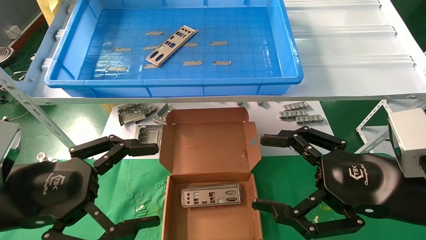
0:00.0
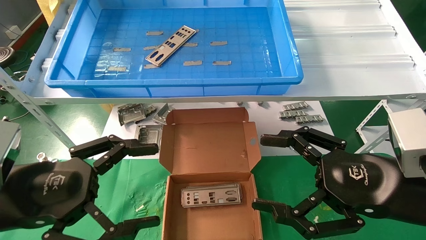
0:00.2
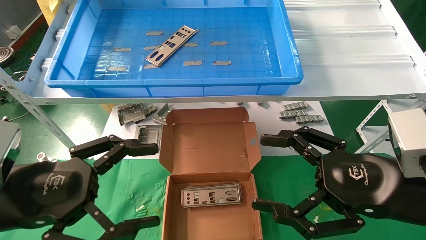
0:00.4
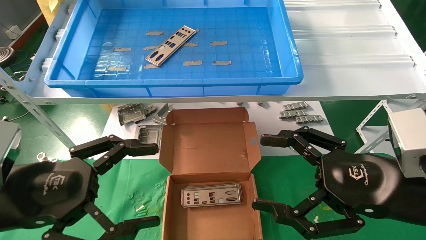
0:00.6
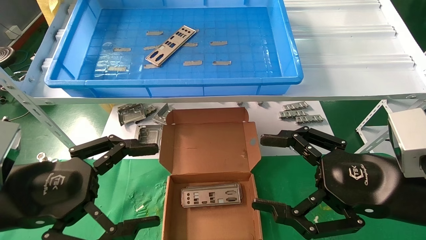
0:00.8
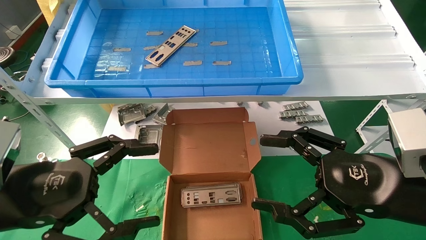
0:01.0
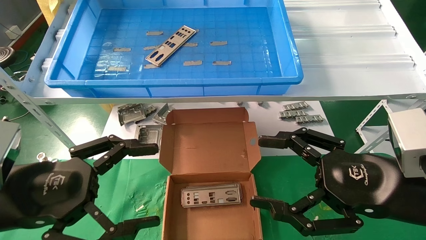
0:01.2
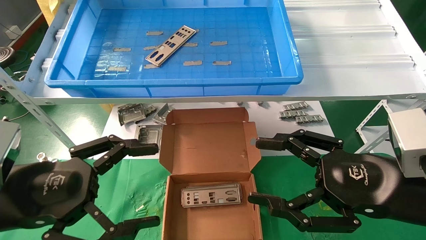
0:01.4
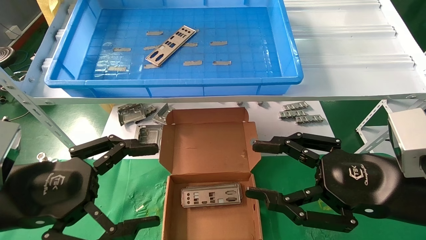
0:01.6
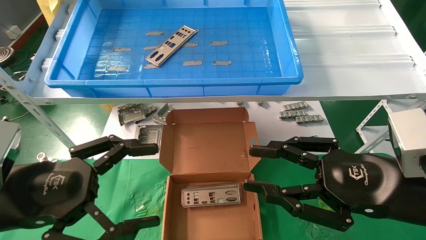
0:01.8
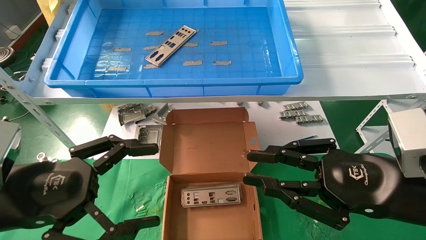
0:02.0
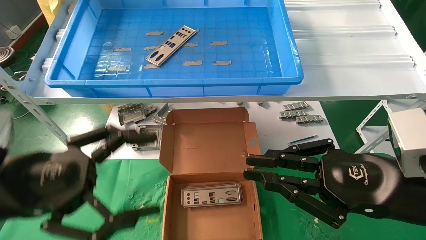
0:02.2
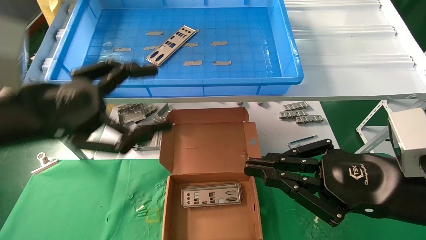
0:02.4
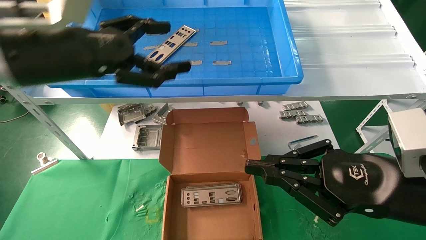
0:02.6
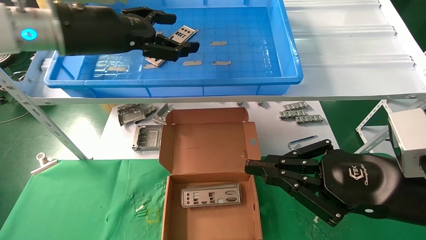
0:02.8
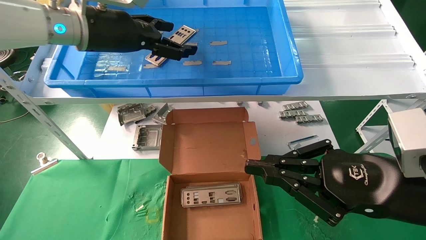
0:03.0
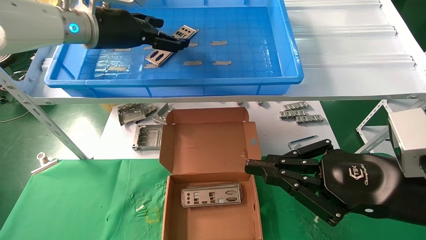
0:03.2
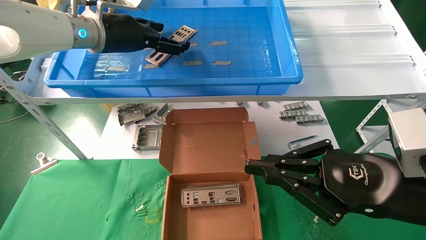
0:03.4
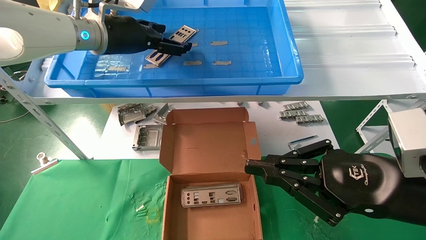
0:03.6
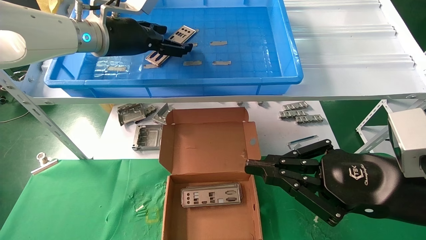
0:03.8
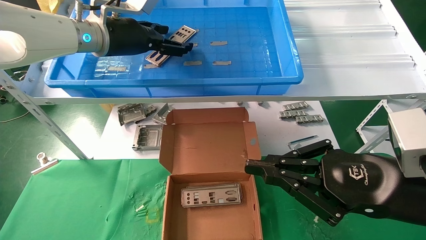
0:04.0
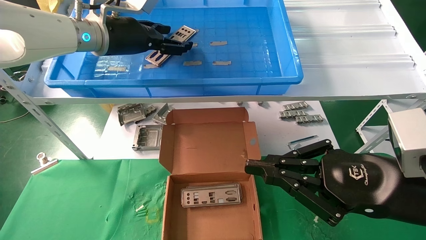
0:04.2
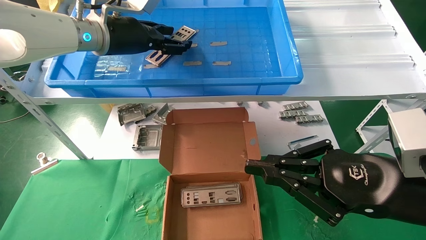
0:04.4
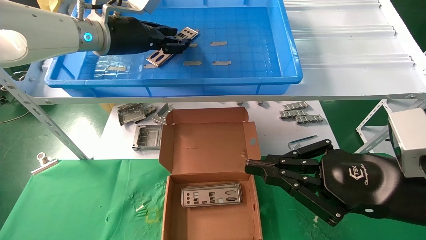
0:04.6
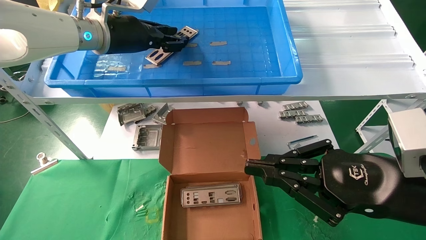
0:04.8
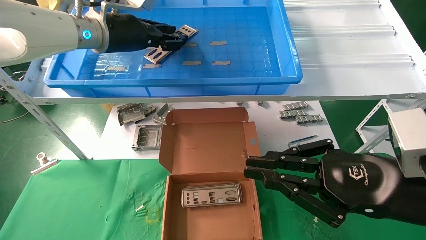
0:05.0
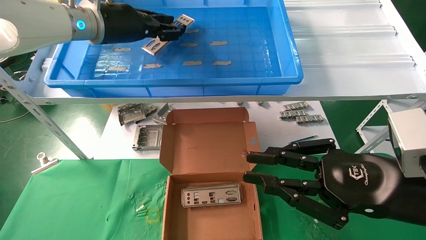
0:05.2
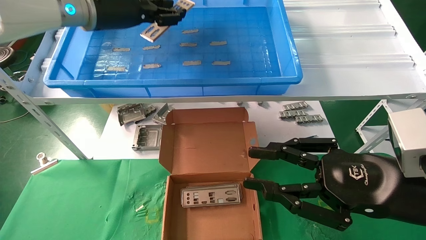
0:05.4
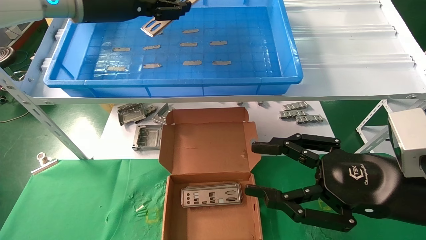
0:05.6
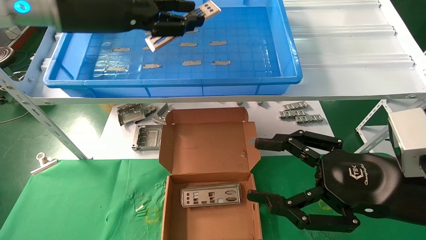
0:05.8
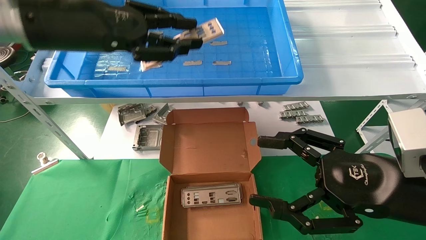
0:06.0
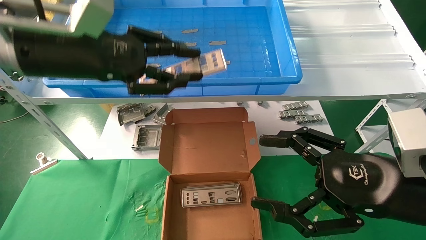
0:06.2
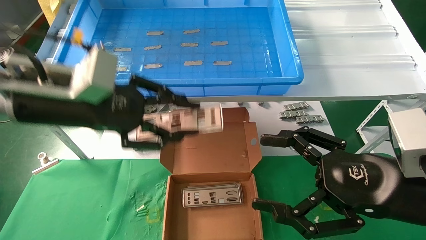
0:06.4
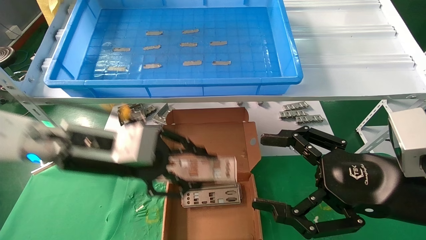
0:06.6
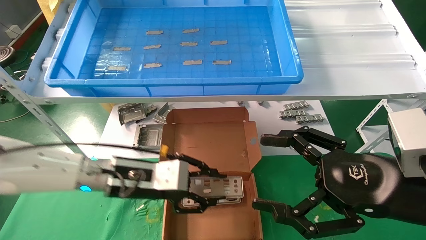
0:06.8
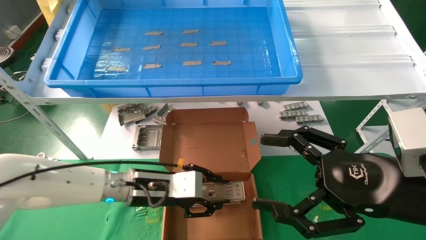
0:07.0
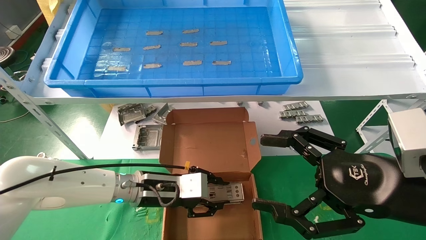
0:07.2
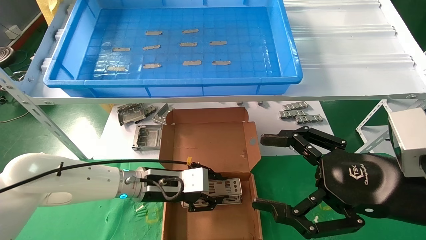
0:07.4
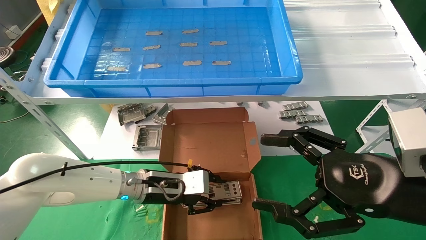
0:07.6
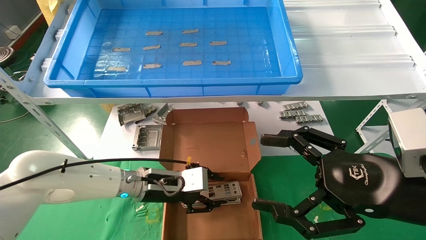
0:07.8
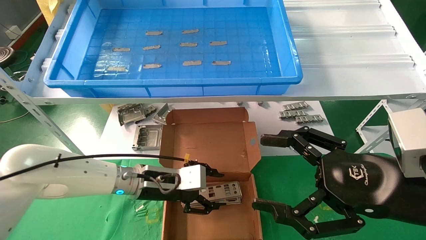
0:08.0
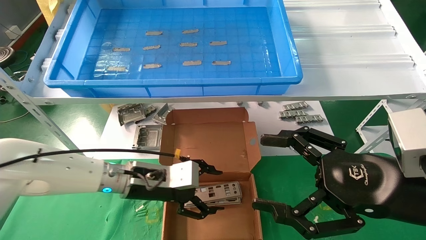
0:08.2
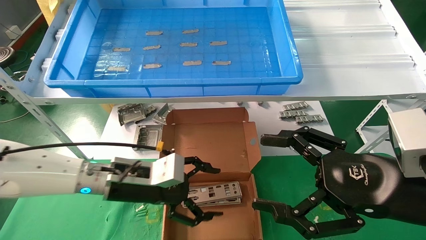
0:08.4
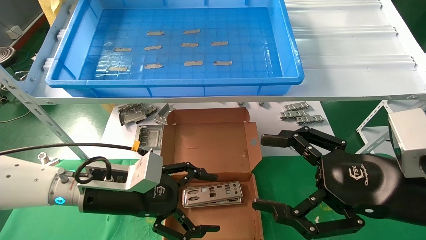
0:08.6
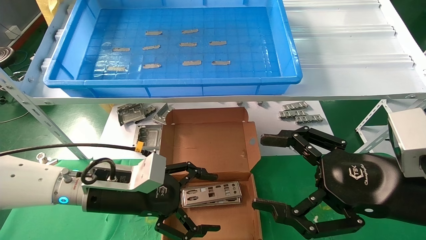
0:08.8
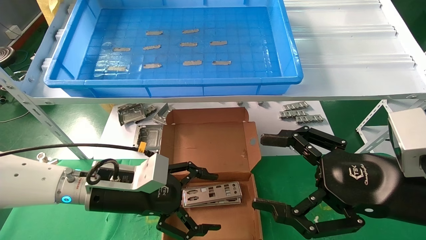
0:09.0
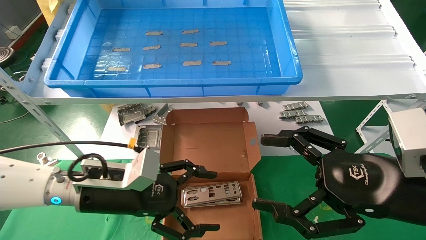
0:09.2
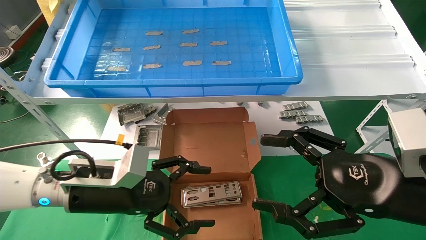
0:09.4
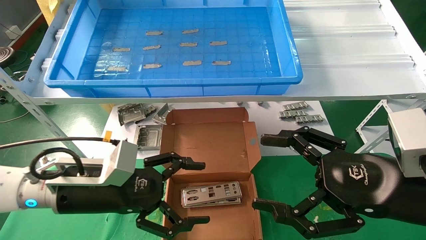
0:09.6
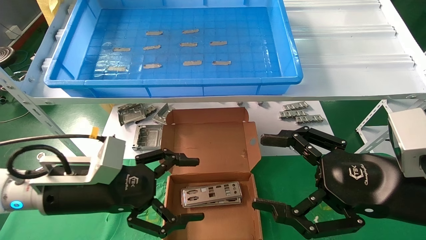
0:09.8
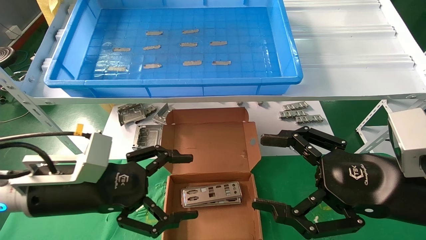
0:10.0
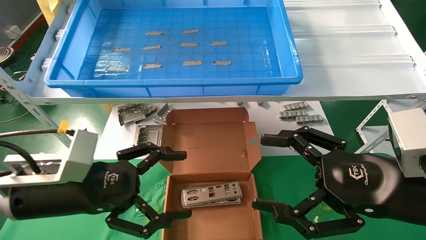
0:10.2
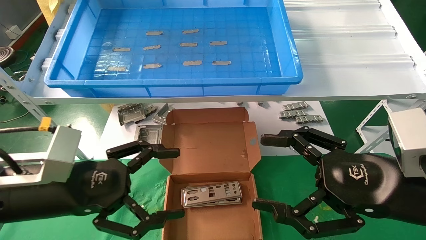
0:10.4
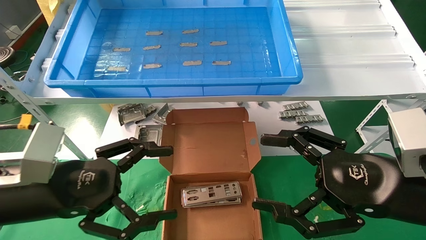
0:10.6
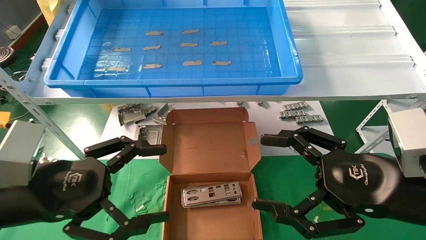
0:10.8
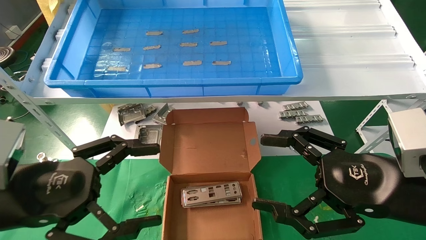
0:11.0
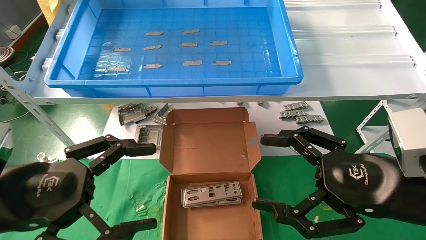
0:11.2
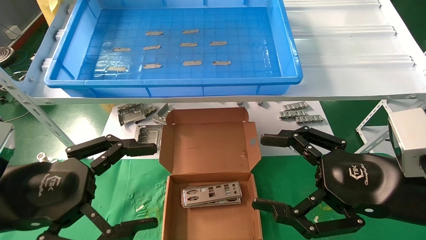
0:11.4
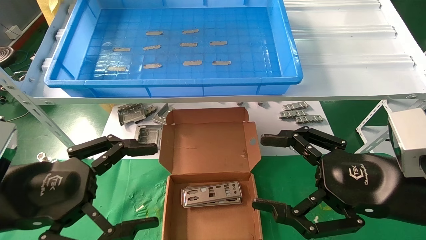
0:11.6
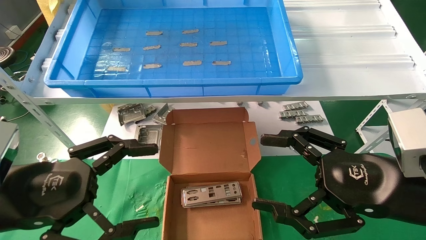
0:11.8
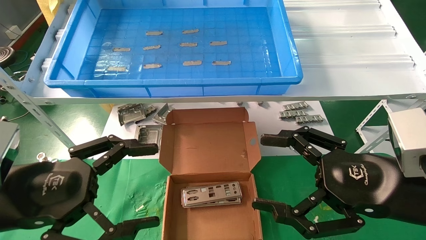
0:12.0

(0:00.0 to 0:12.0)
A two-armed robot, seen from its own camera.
Task of the whole recording: pick up the parts on the tray and put them in the cardboard box.
Step, 0:02.6 - 0:04.8: Pick up the IO bracket from the container box.
Step, 0:05.0 - 0:07.8: Place the IO bracket into the ingredient slot.
0:00.0 - 0:01.6: Both grippers stay put.
0:01.6 - 0:03.0: The right gripper closes up, while the left gripper is displaced forward and upward by some 30 cm.
0:03.0 - 0:04.4: The left gripper closes up.
0:04.4 - 0:06.0: The right gripper opens. Meanwhile the left gripper goes approximately 10 cm backward, and closes.
0:06.0 - 0:07.6: The left gripper travels downward by roughly 30 cm.
0:07.6 - 0:09.0: The left gripper heads backward and to the left, covering approximately 10 cm, and opens.
0:09.0 - 0:10.4: The left gripper shifts approximately 10 cm backward and to the left.
0:10.4 - 0:12.0: The left gripper shifts by approximately 5 cm.

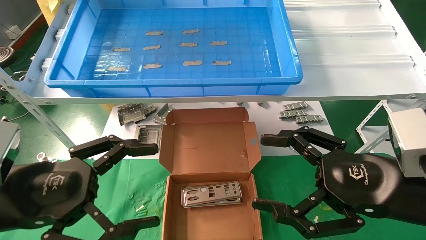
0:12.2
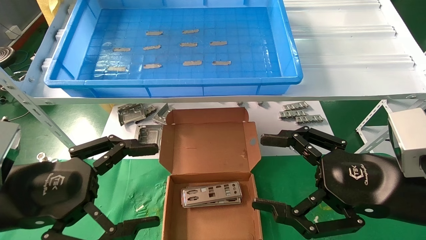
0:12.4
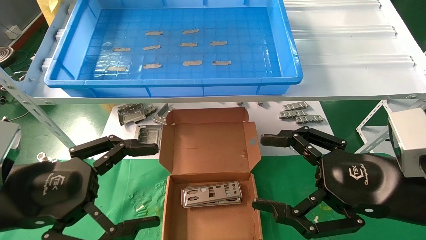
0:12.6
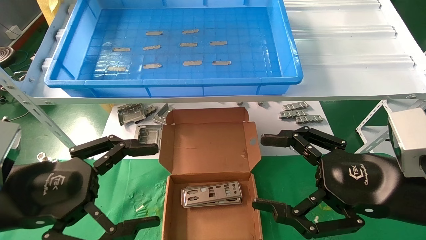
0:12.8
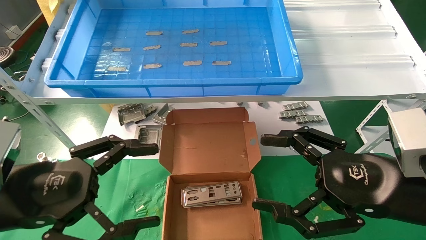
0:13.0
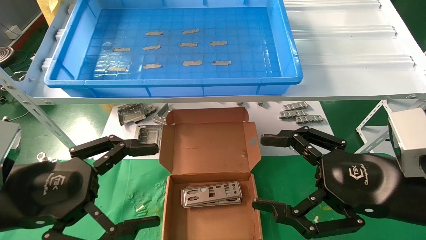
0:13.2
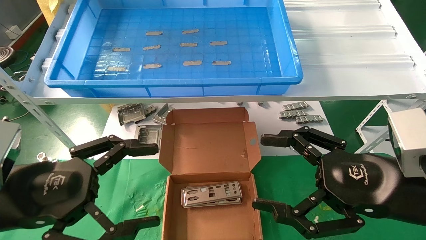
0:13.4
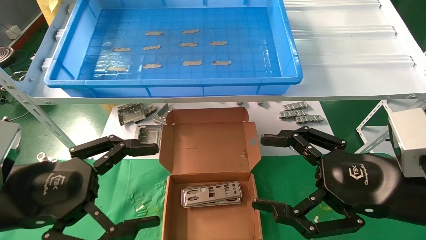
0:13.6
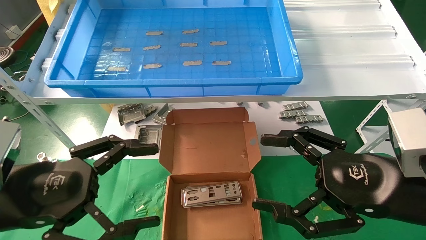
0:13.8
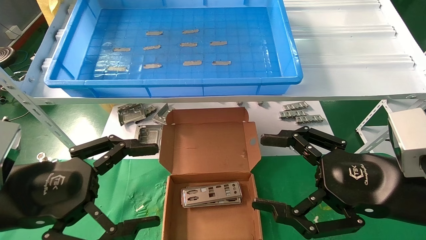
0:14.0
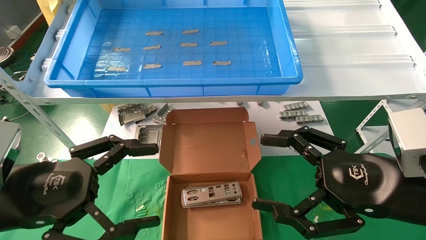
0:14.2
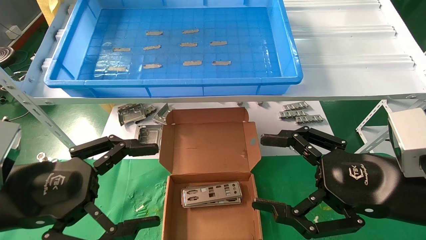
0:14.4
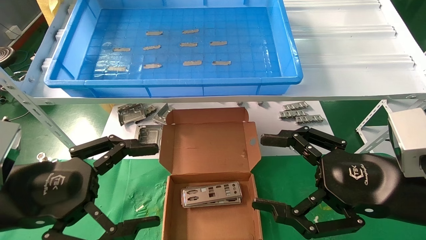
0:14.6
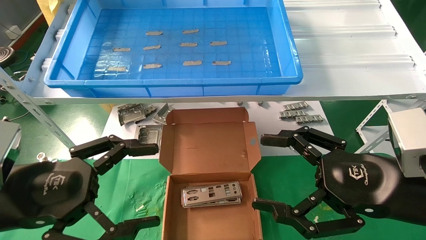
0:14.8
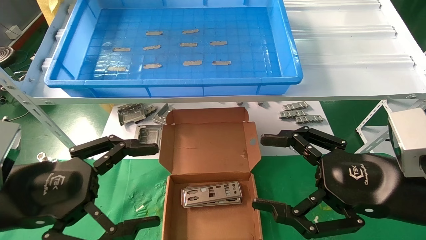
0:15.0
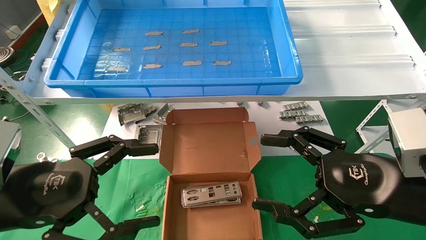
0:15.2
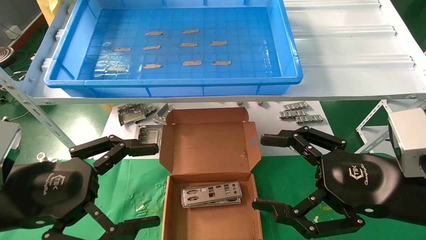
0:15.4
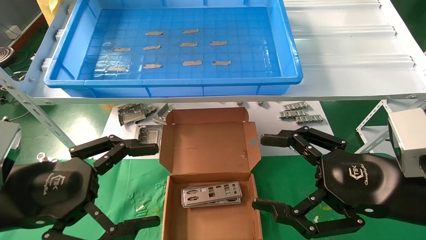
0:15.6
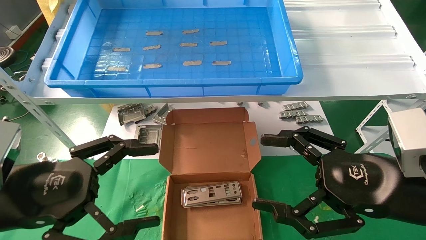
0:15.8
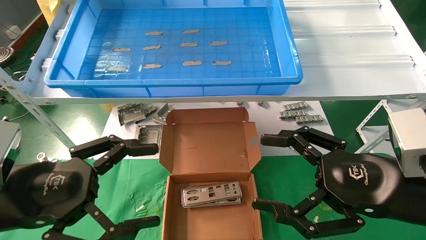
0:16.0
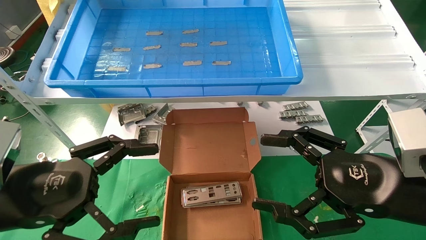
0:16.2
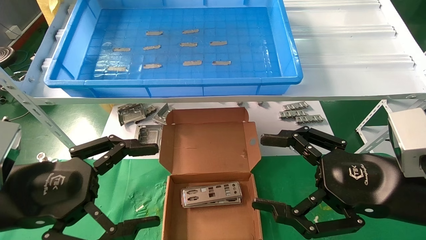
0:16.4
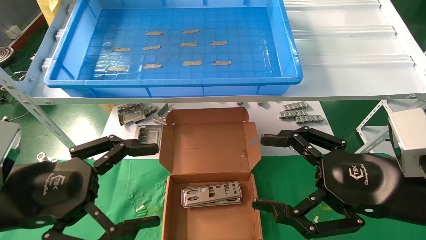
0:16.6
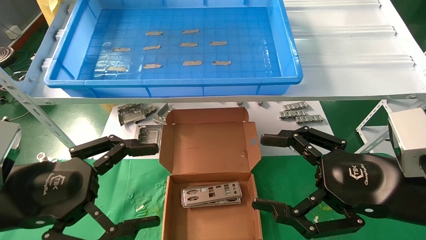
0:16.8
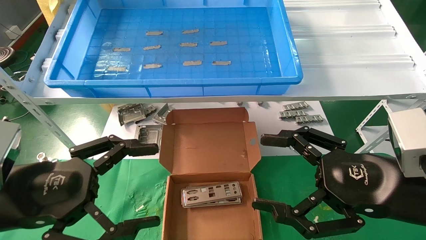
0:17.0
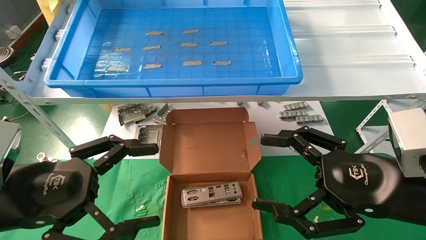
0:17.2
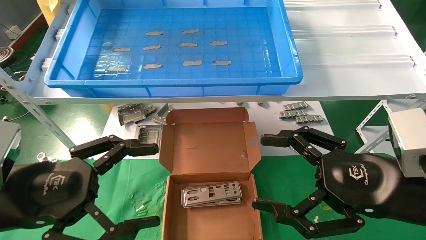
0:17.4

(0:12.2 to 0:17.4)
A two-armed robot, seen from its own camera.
Task of the whole recording: pick up the parts on the tray and put them in the cardboard box.
0:12.2 - 0:17.4: Neither gripper changes place.
